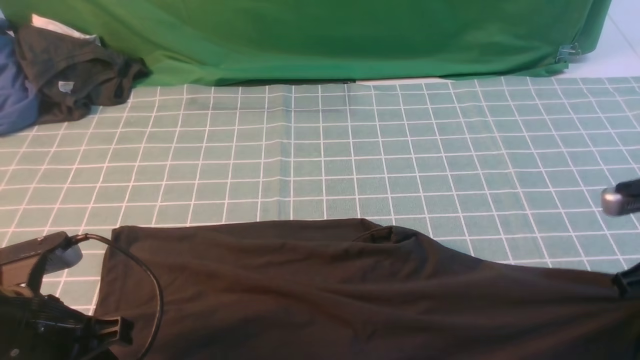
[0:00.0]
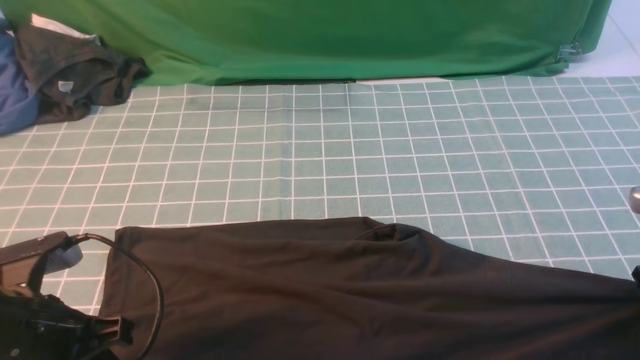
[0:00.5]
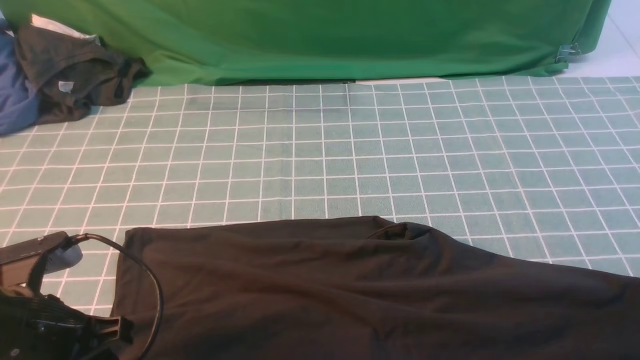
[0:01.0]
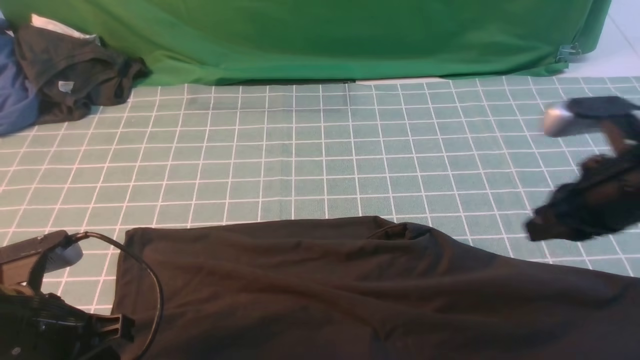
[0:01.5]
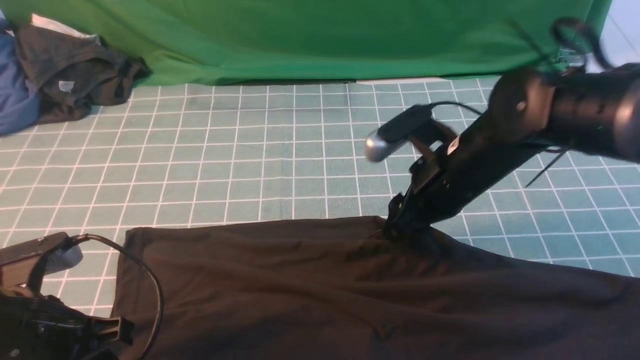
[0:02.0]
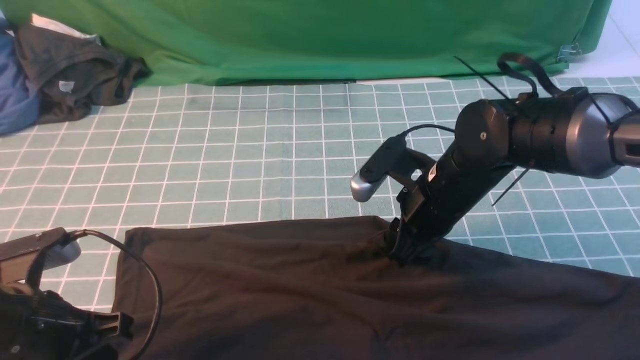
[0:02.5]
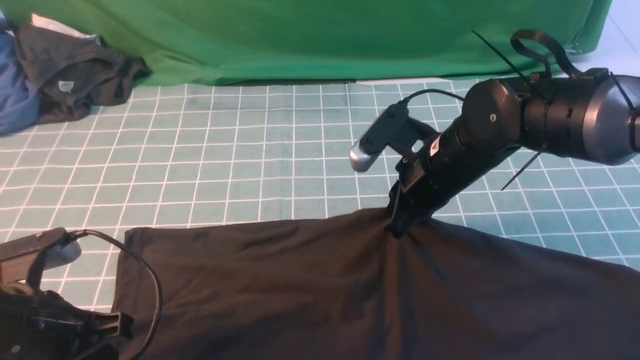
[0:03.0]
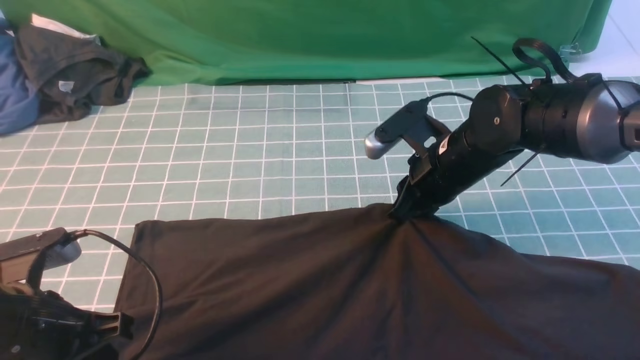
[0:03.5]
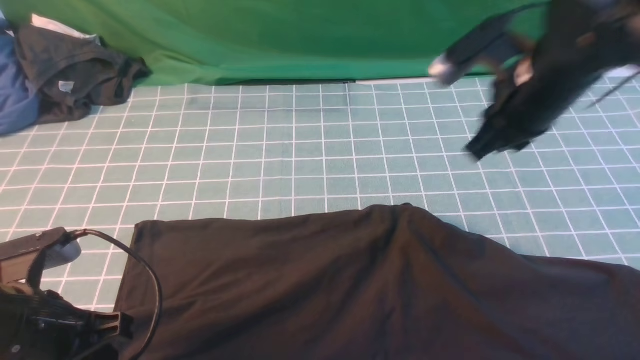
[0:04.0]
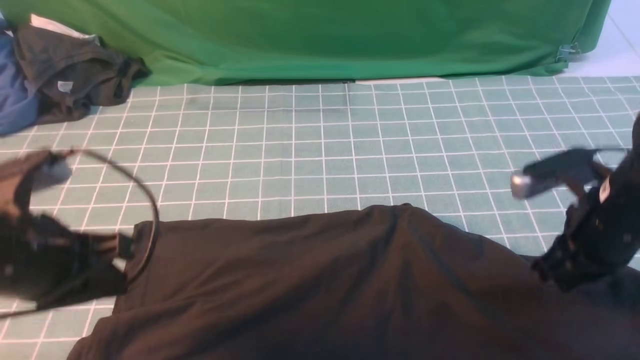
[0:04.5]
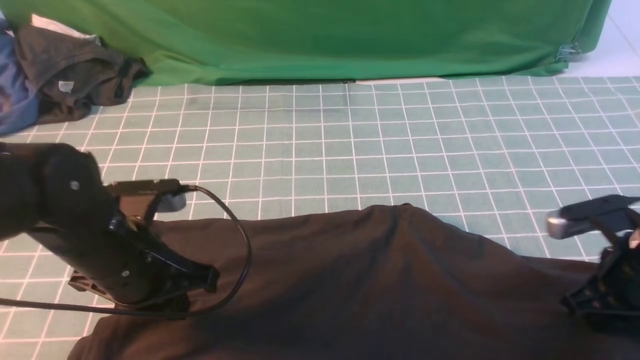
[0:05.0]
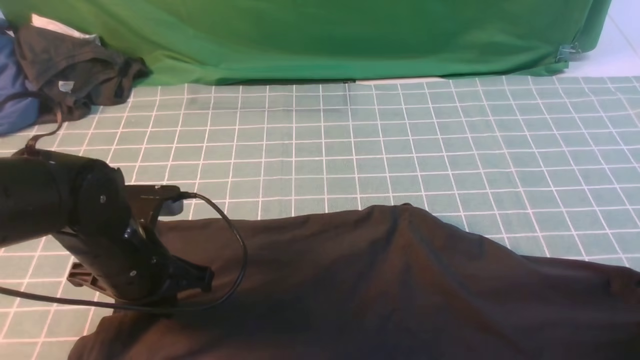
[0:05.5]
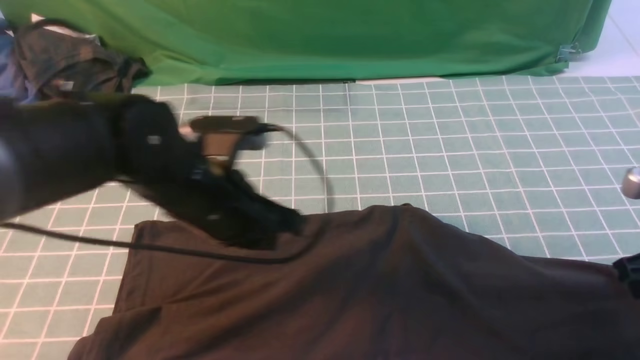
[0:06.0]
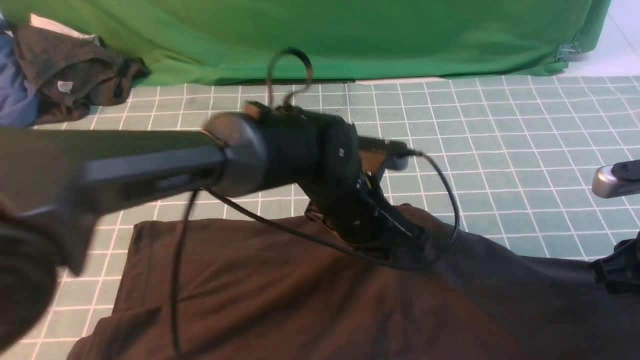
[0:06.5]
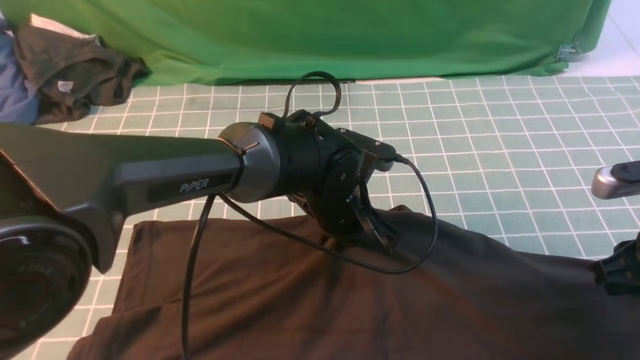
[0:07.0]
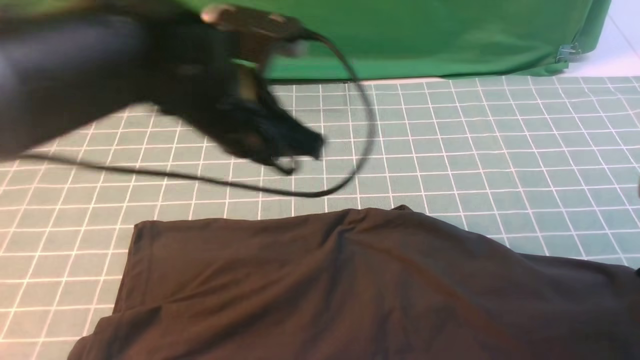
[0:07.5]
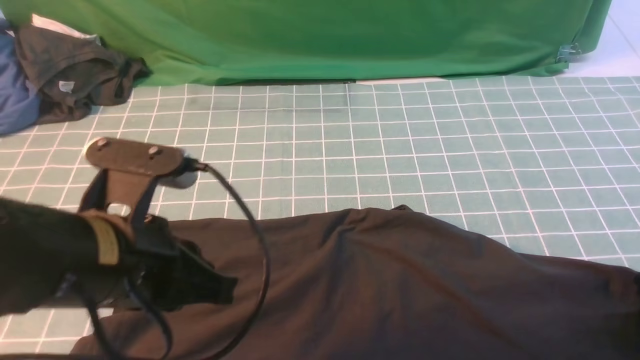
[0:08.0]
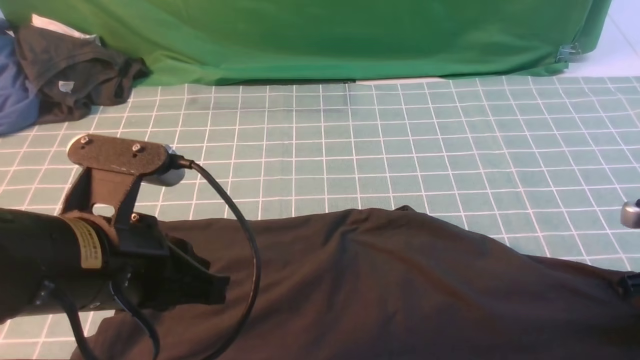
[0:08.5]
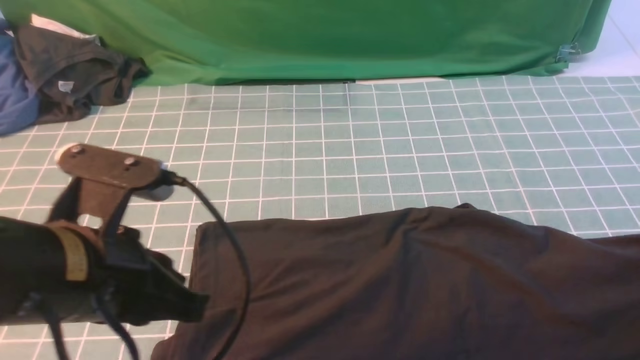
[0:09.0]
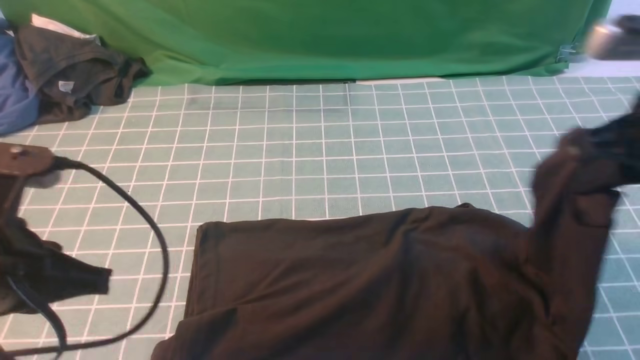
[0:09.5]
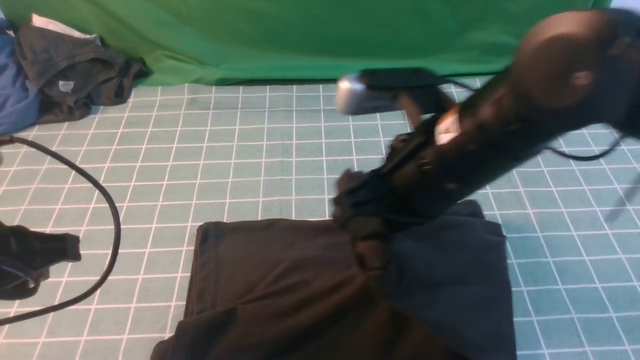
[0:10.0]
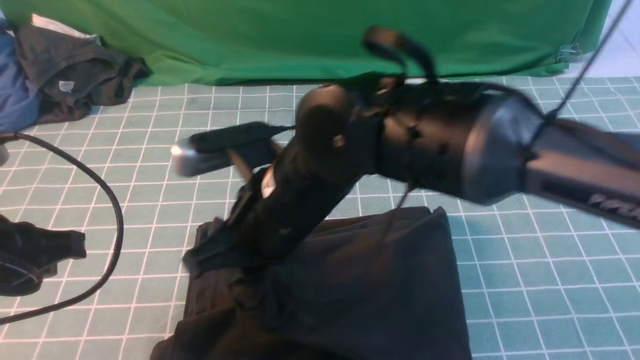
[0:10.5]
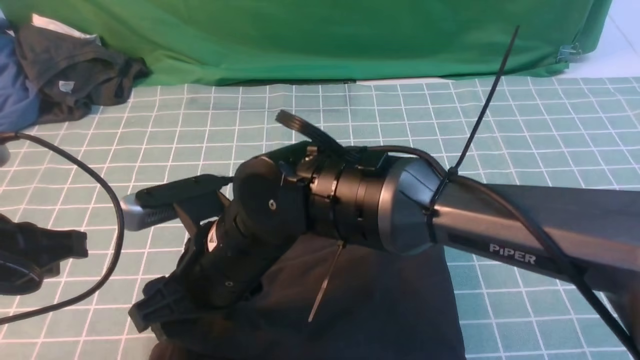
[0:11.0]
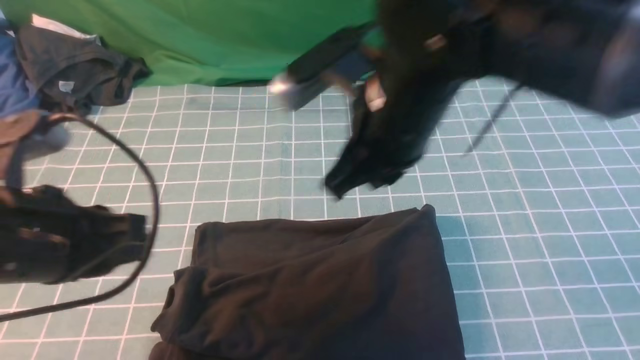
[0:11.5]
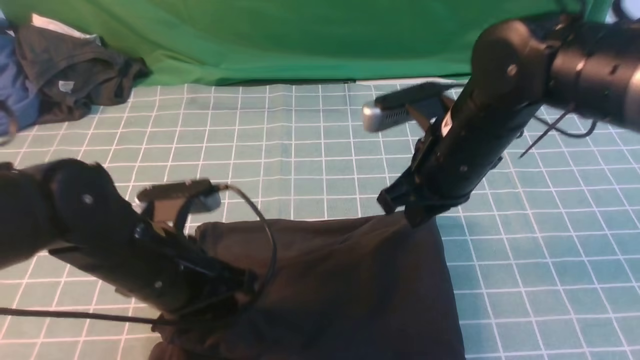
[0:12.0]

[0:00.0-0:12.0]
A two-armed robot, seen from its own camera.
Step, 0:00.0 to 0:08.5: use the right arm to clamp the right edge of the fabric.
Step, 0:09.0 to 0:11.5: use the right arm to drag the right edge of the fabric to the left and folds it over the left edge.
0:00.0 to 0:02.0: The right gripper is displaced to the left and forward by roughly 20 cm, and opens.
0:02.0 to 0:04.0: The right gripper shifts some 10 cm upward and to the right, and closes.
0:04.0 to 0:06.0: The right gripper shifts some 20 cm to the right, backward and downward. The left gripper shifts about 20 cm to the right and forward.
0:06.0 to 0:08.0: The left gripper is displaced backward and upward by some 10 cm, and reaches some 10 cm to the right, then returns, while the right gripper shifts by some 5 cm, and opens up.
0:08.0 to 0:10.0: The right gripper shifts roughly 30 cm to the left and upward, and closes its fingers; the left gripper shifts some 10 cm to the left.
0:10.0 to 0:12.0: The right gripper is displaced forward and downward by roughly 10 cm, reaches about 15 cm to the left, then returns, and opens, then closes once more; the left gripper moves to the right, downward and forward, roughly 15 cm.

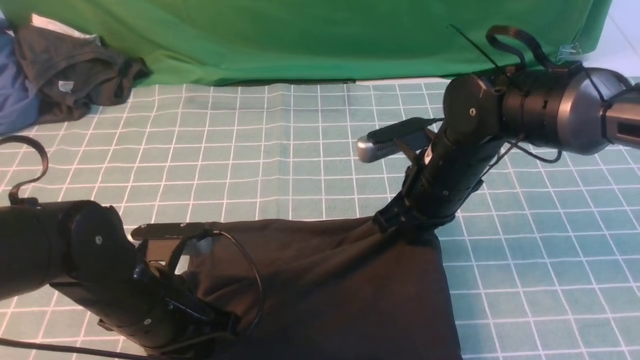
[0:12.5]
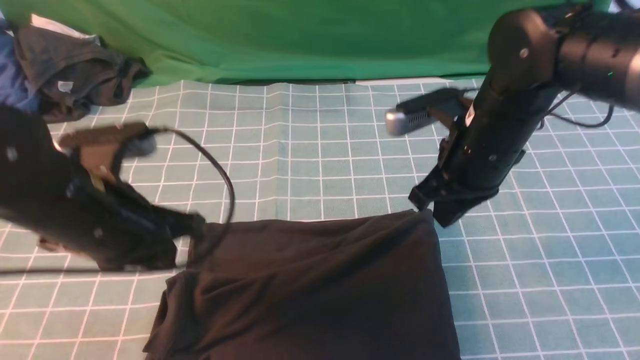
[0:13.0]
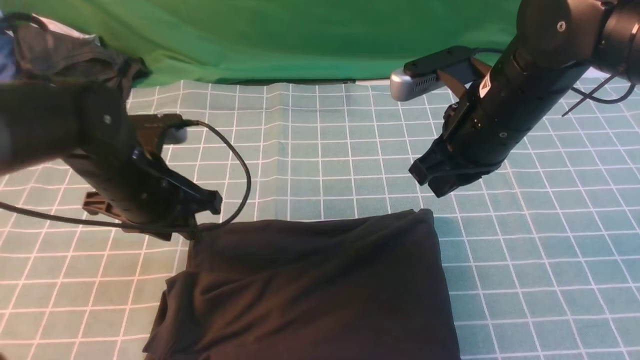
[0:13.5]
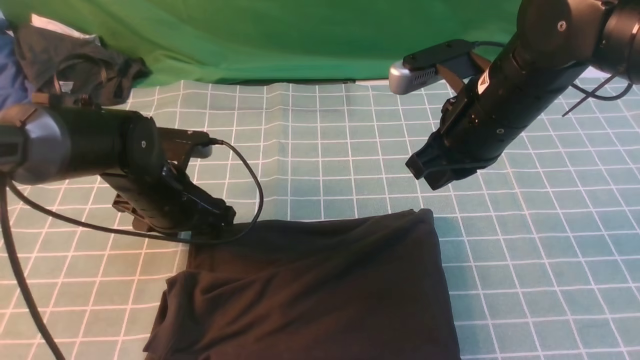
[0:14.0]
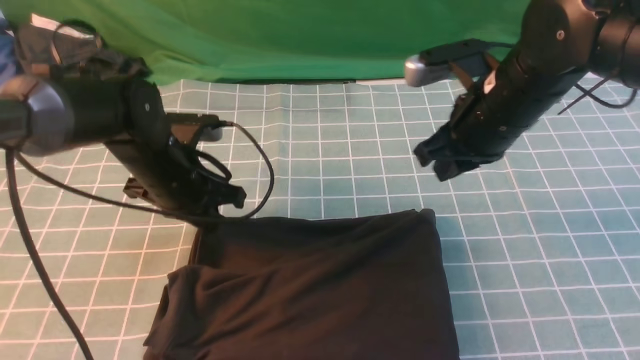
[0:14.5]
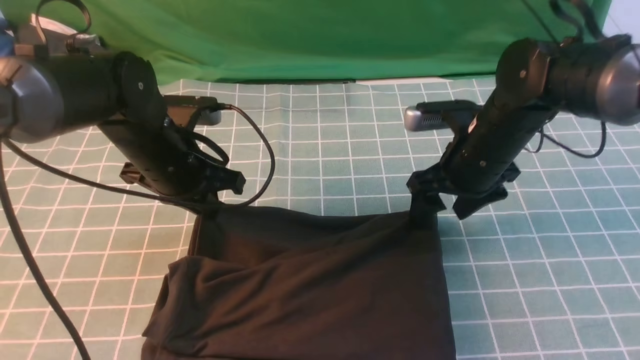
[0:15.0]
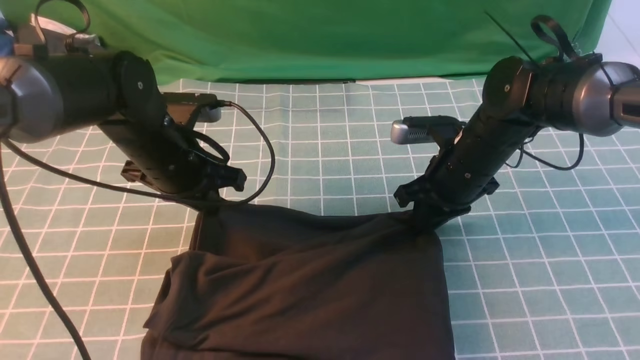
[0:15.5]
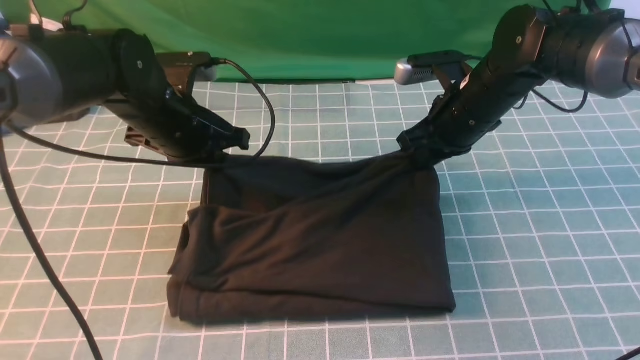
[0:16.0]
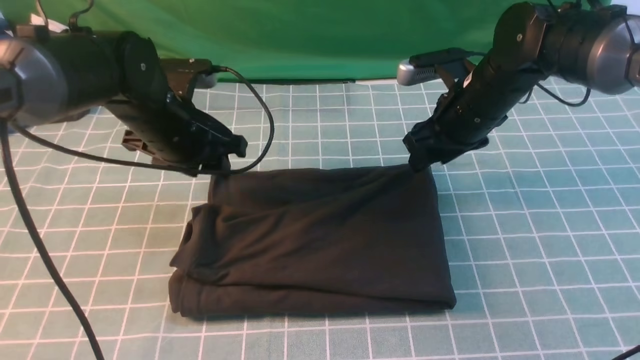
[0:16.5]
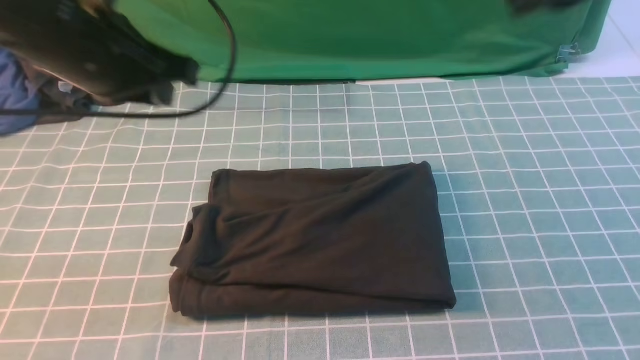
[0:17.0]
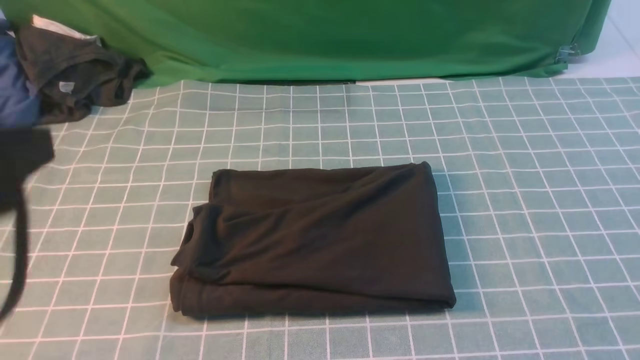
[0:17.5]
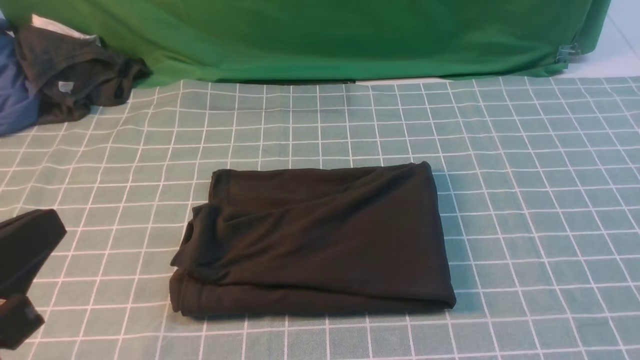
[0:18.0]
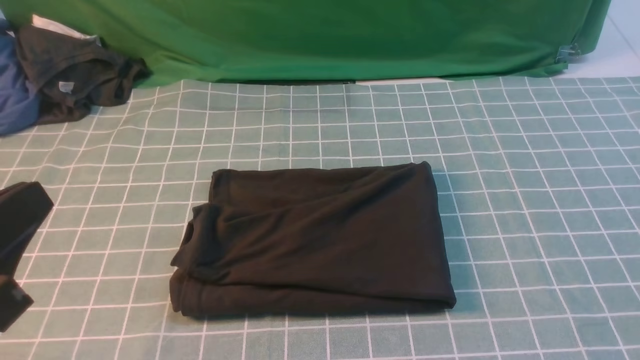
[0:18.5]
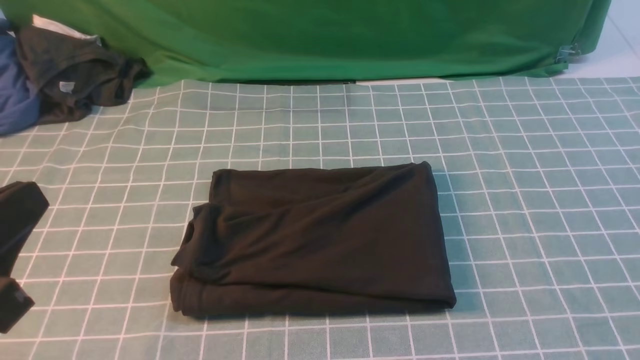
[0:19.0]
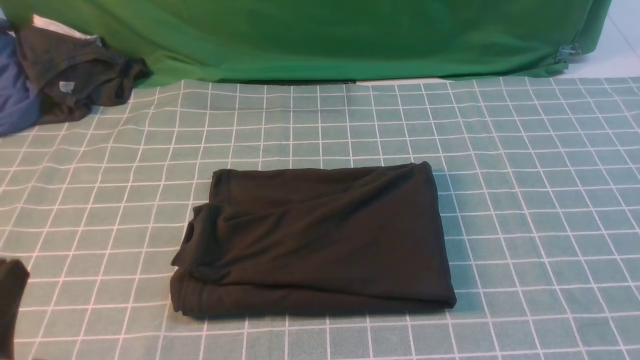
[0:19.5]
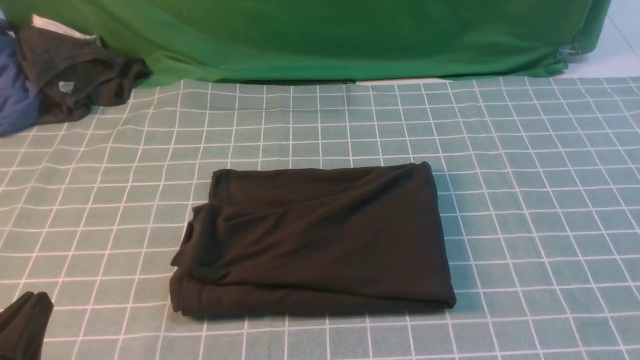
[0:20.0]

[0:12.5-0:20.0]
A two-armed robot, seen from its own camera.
0:12.5 to 0:14.5: The left gripper goes about 15 cm forward, and opens and closes again. Meanwhile the right gripper travels upward by about 5 cm.
0:14.5 to 0:16.5: The left gripper travels upward by some 5 cm, and opens up, while the right gripper heads forward, covering roughly 5 cm, travels downward and back again, roughly 10 cm each way, and opens, then closes once more.
0:16.5 to 0:18.0: The left gripper travels backward by some 30 cm, and closes its fingers, while the right gripper goes about 40 cm backward and to the right, and closes up.
0:18.0 to 0:20.0: The left gripper moves downward, about 10 cm.
